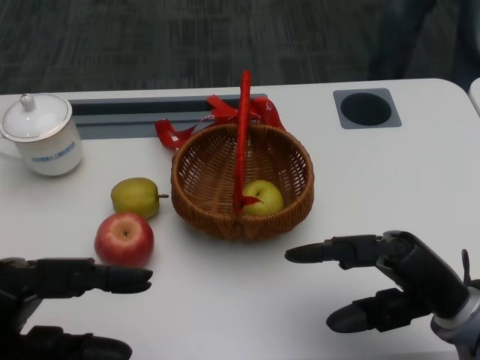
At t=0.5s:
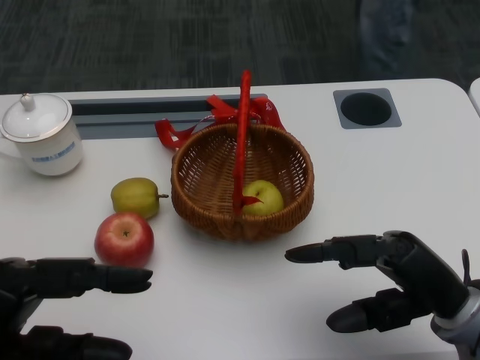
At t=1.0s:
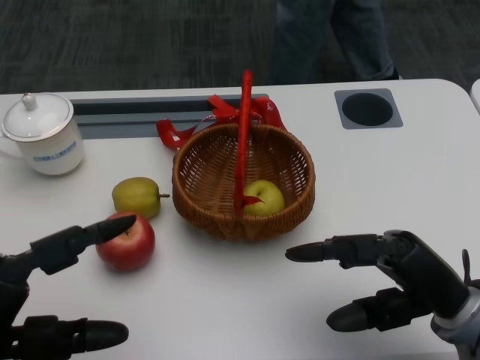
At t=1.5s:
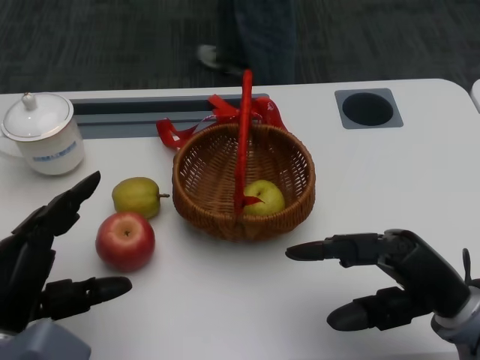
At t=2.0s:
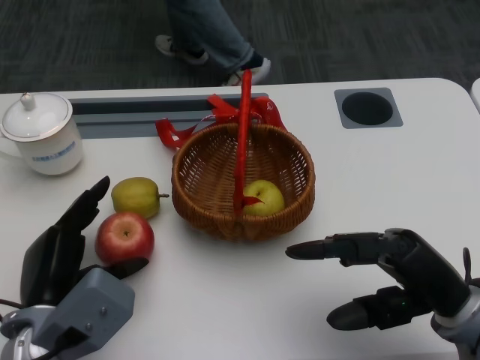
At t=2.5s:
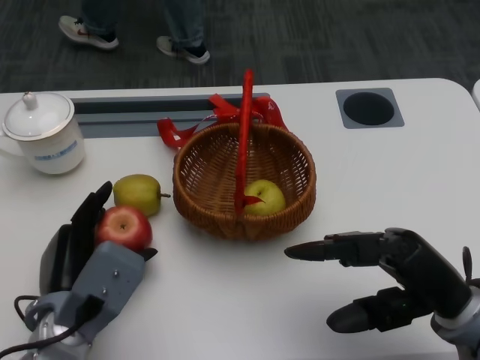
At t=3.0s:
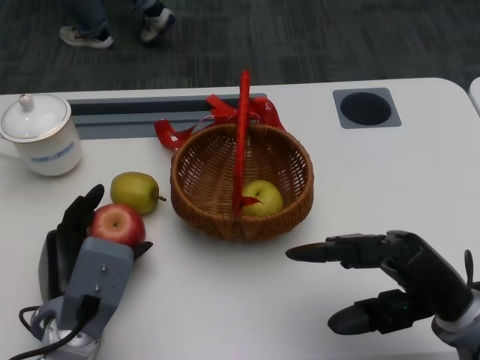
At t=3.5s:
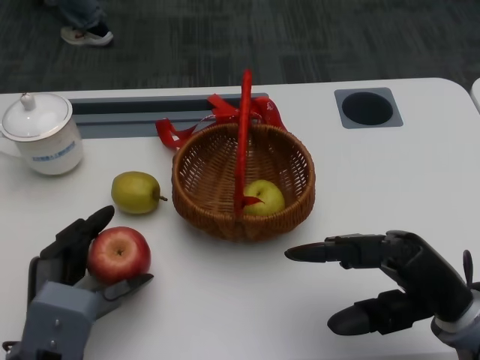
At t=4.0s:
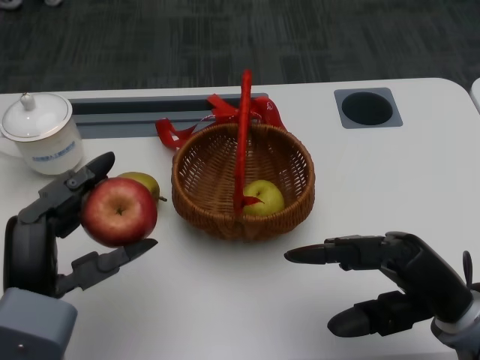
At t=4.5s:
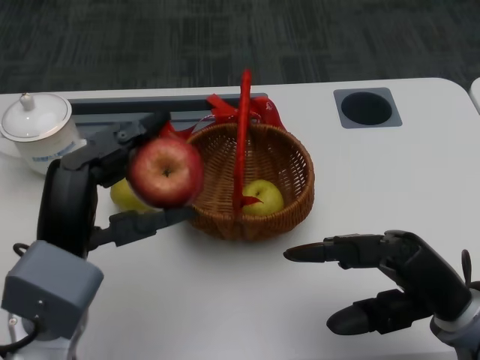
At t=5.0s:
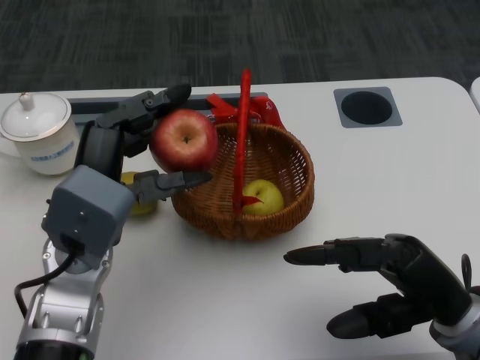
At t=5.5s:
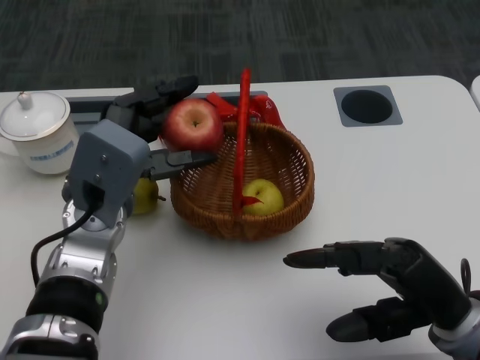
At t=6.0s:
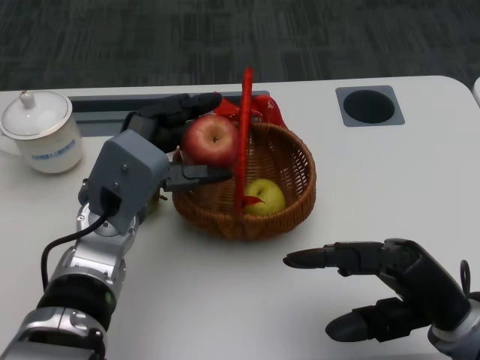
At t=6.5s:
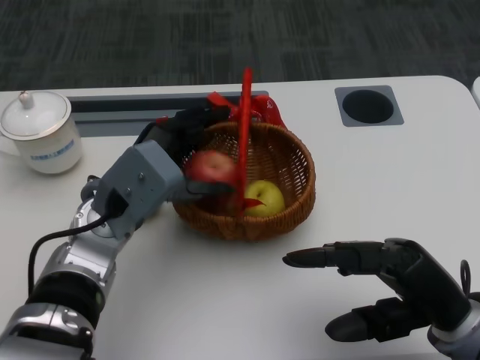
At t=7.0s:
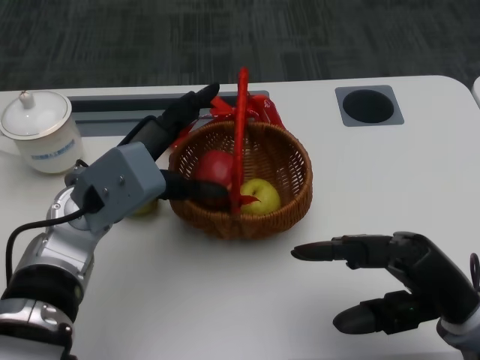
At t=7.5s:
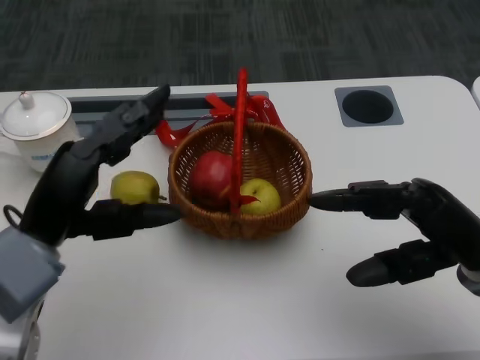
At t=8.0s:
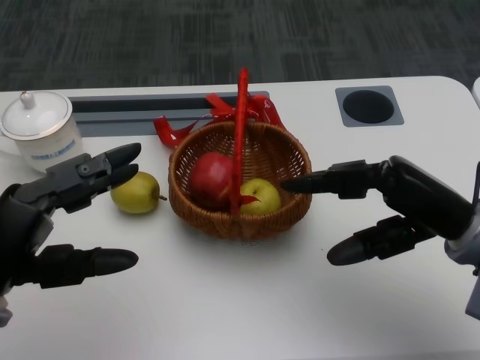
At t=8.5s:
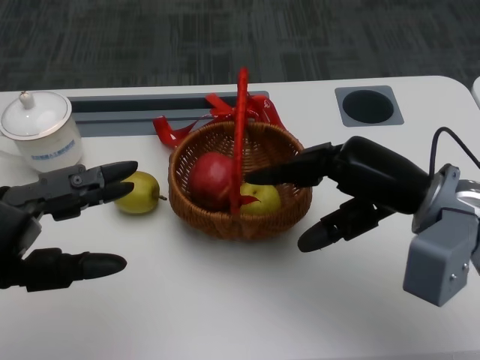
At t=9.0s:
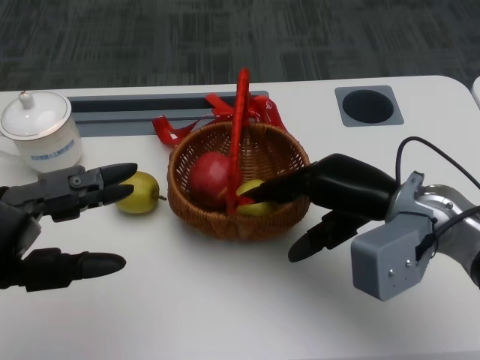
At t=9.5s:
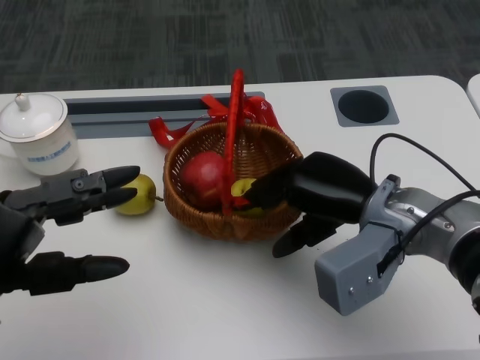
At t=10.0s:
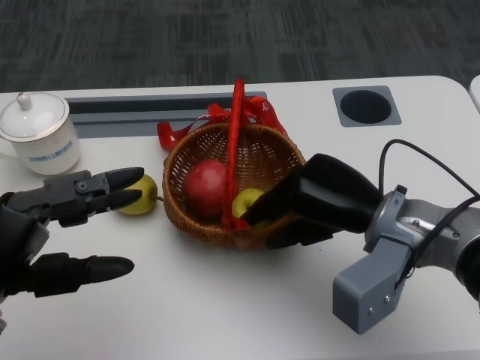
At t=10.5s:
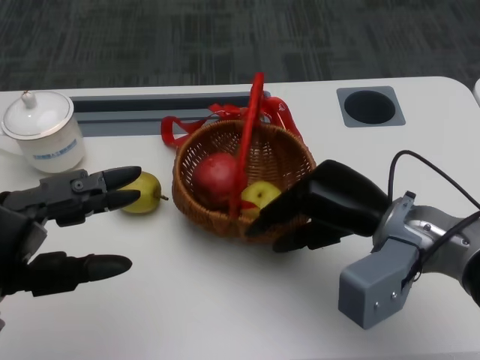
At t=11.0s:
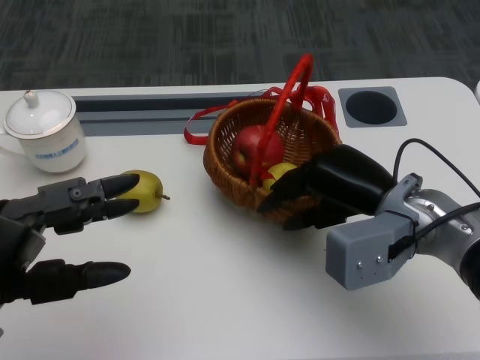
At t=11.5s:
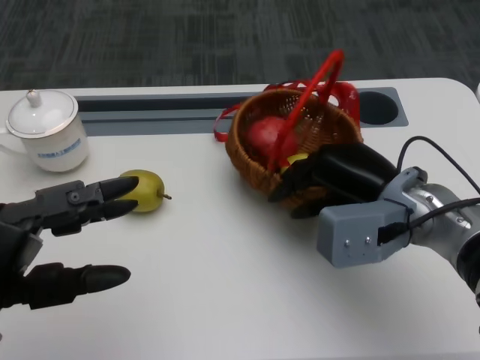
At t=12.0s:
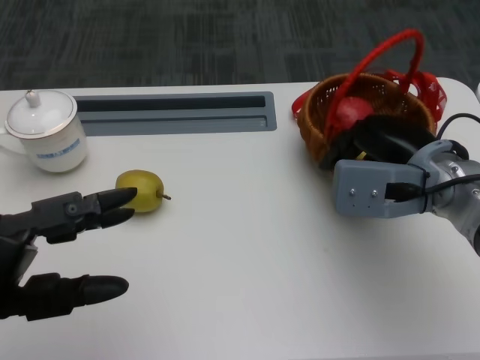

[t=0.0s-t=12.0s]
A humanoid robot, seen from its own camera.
Step, t=1.0s to t=2.0s: Grasp the apple with the left gripper.
Step, t=2.5s to t=5.5s: Place the apple into the basket with the left gripper.
Step, t=6.0s to t=8.0s: Grasp the basket with the right gripper.
Step, t=8.5s to t=10.5s: Move the basket to the front of the table with the right gripper.
t=2.0s to t=4.0s: The left hand moves roughly 5 cm.
t=4.0s to t=6.0s: The left hand goes some 15 cm forward and to the right.
t=6.0s to t=8.0s: The right hand heads forward and upward, covering about 10 cm, while the left hand heads to the left and backward, covering approximately 15 cm.
t=8.0s to t=10.0s: The right hand goes approximately 10 cm to the left.
t=10.0s to t=12.0s: The right hand shifts by roughly 5 cm.

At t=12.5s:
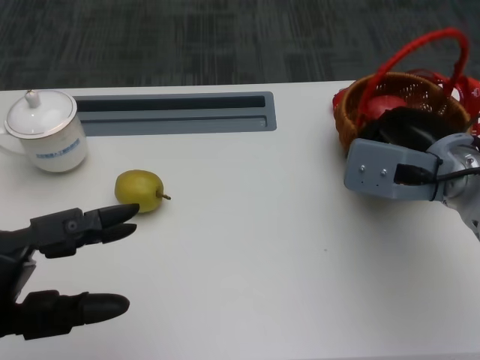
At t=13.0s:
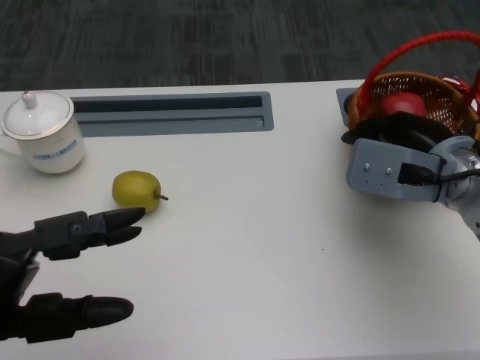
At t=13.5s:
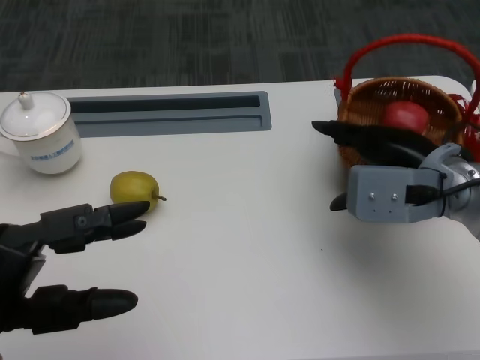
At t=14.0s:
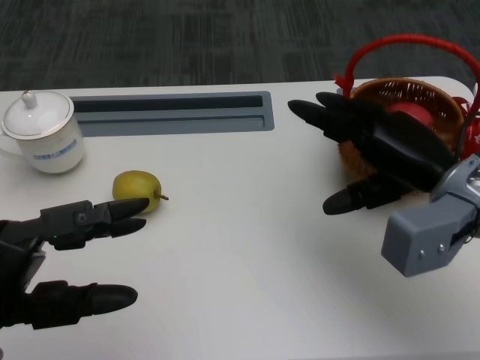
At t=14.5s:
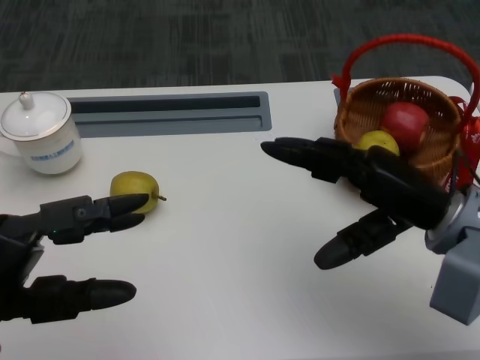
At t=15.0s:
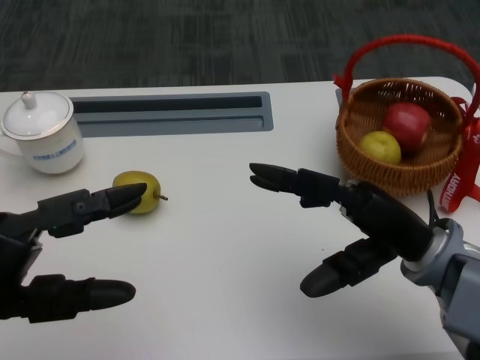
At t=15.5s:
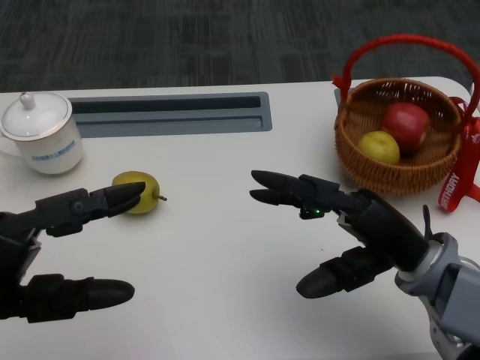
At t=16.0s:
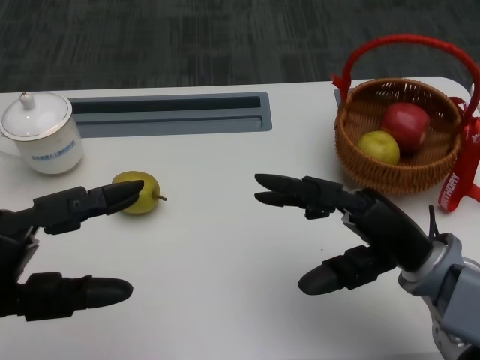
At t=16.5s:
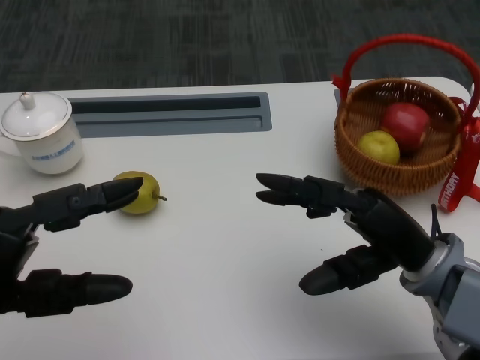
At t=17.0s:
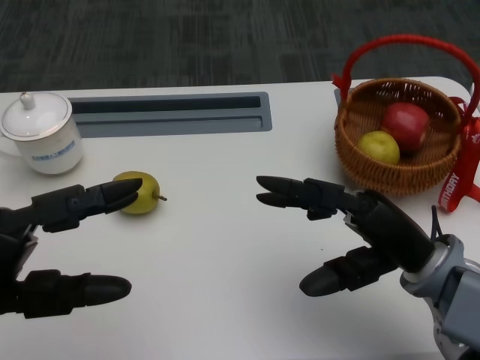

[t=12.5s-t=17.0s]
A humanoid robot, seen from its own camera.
t=12.5s to t=14.5s: The right hand travels backward by approximately 5 cm.
t=14.5s to t=17.0s: The right hand ends up some 5 cm from where it was.

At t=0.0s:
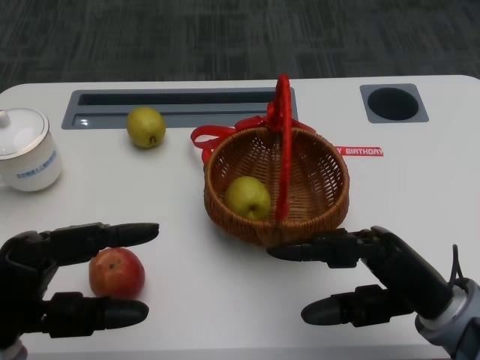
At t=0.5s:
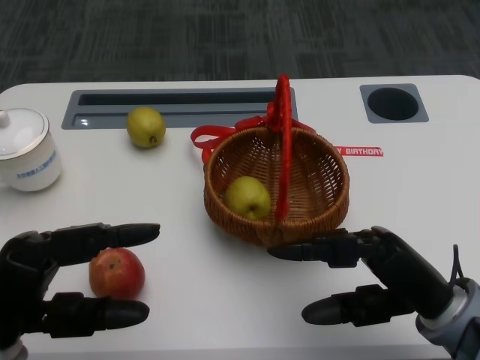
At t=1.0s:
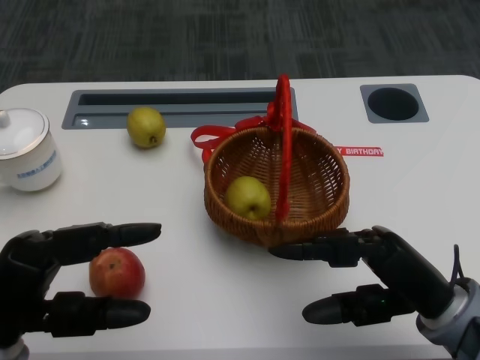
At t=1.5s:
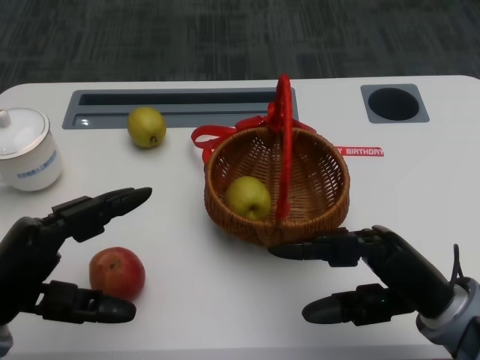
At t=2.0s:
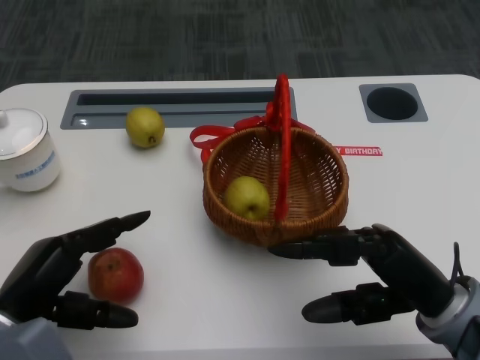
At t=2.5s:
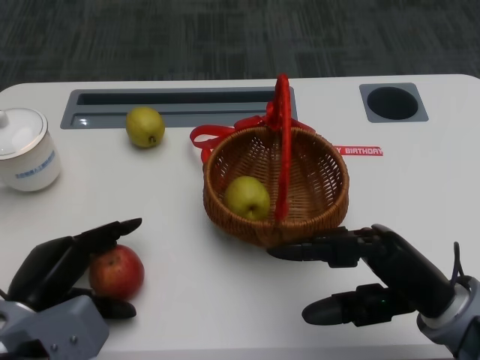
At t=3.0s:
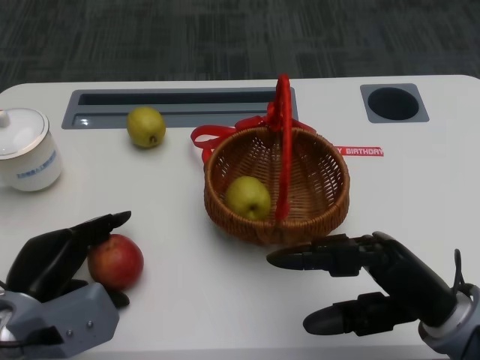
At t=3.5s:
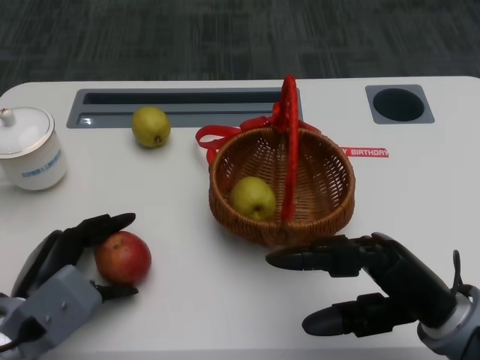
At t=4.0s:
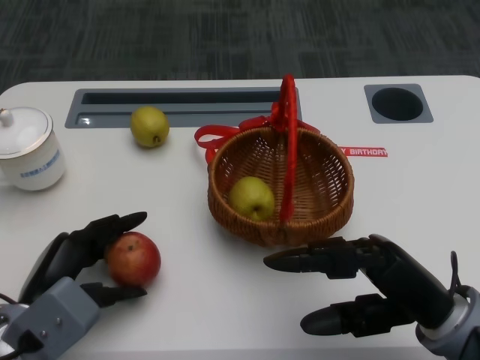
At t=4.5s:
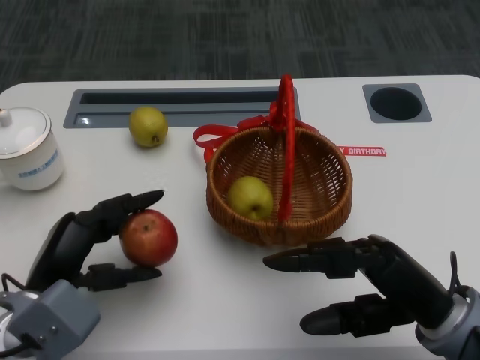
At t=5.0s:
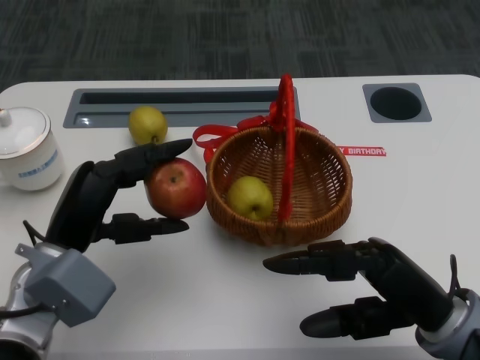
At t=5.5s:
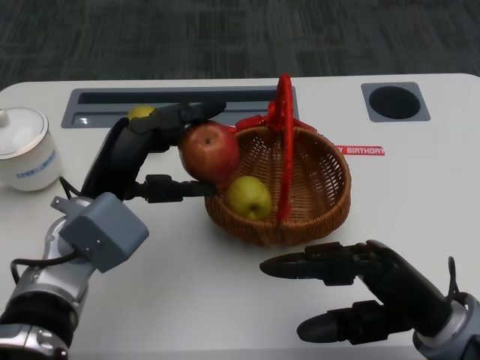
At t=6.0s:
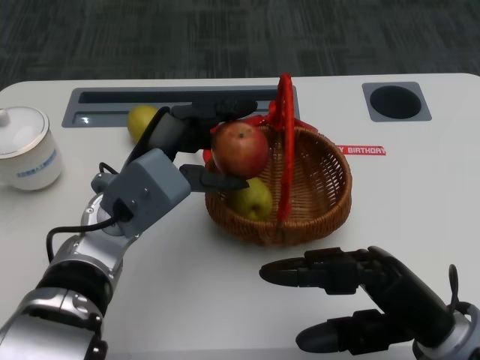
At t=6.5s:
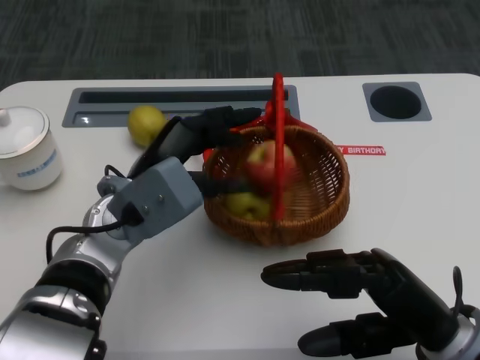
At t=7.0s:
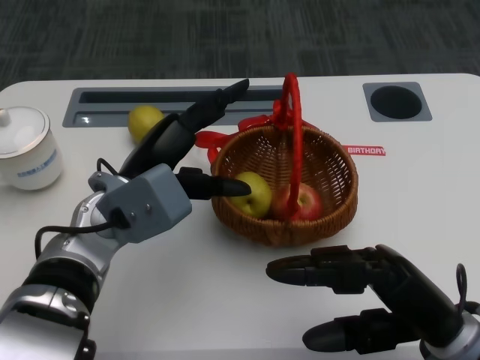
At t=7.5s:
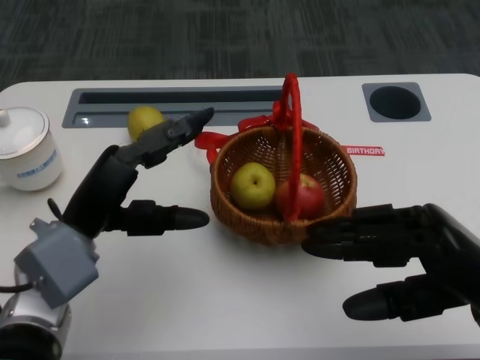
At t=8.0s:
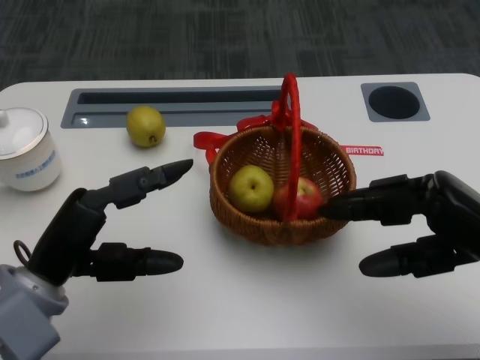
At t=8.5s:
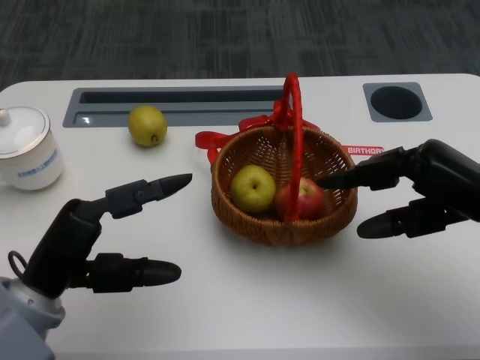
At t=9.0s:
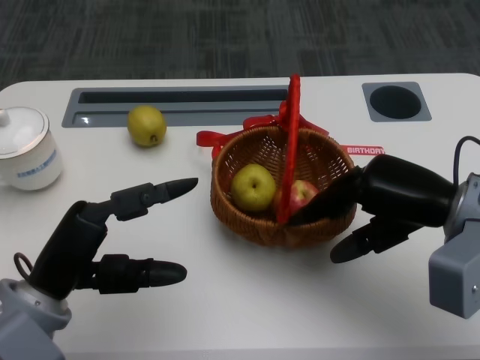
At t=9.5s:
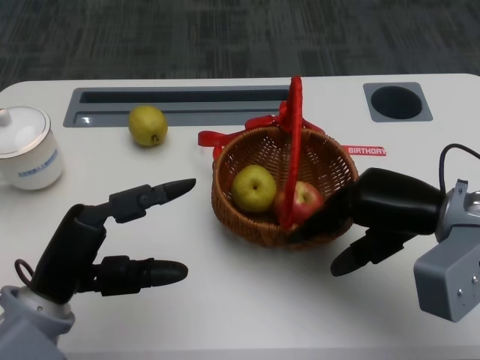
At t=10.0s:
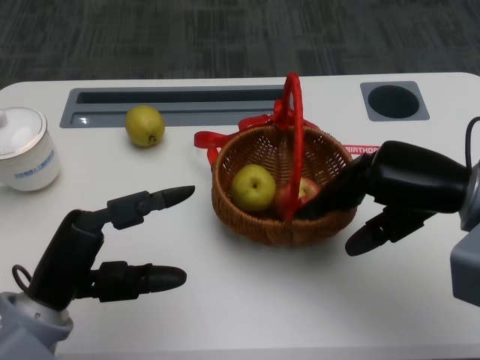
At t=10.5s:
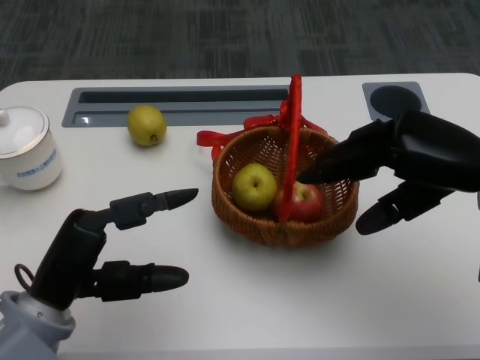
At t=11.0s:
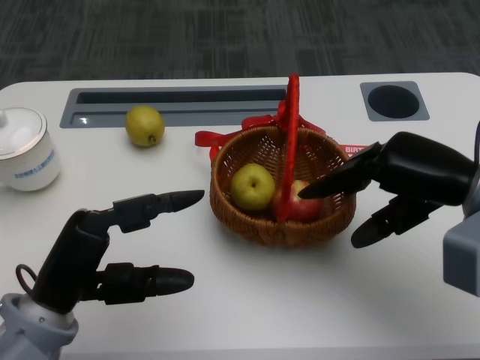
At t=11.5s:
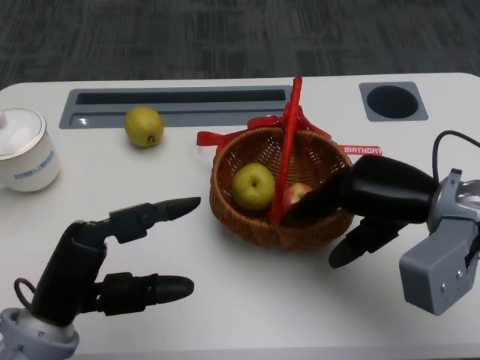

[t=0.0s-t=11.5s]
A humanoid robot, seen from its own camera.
Step, t=1.0s to t=2.5s: Grasp the apple with the left gripper.
Step, t=3.0s to t=5.5s: Place the apple into the basket with the left gripper.
Step, t=6.0s to t=11.0s: Grasp the basket with the right gripper.
t=4.0s to t=6.0s: The left hand travels to the right, upward and forward by about 15 cm.
t=6.0s to t=7.5s: The right hand changes place by approximately 5 cm, while the left hand is displaced to the left by about 5 cm.
t=7.5s to t=9.5s: The right hand goes approximately 10 cm forward. The left hand goes some 5 cm backward.
t=9.5s to t=11.5s: The hands make only small movements.
